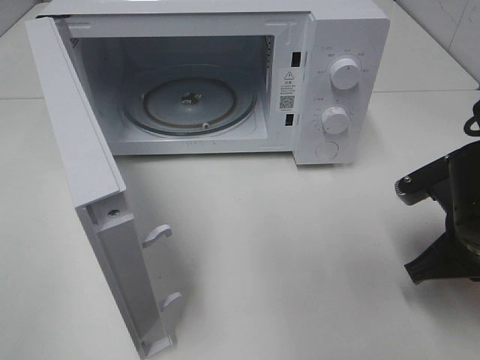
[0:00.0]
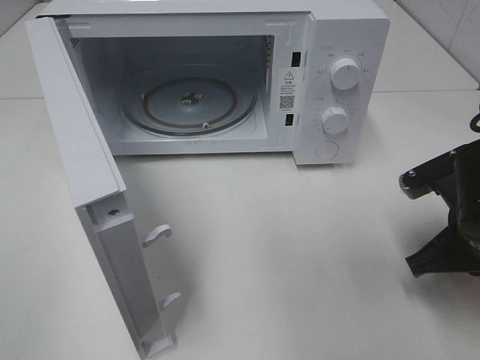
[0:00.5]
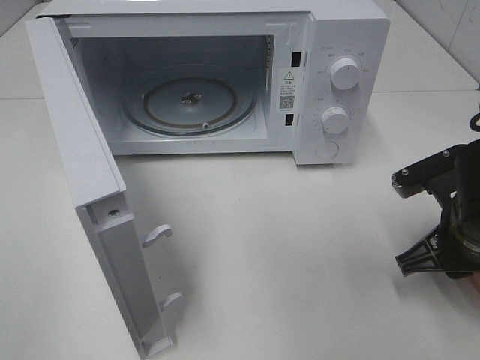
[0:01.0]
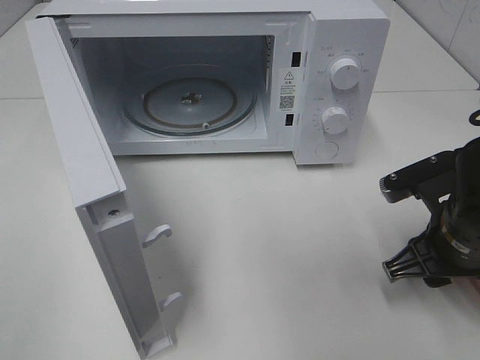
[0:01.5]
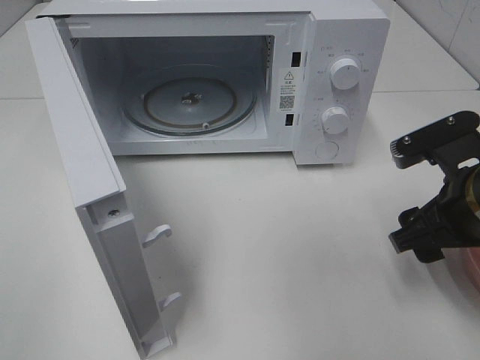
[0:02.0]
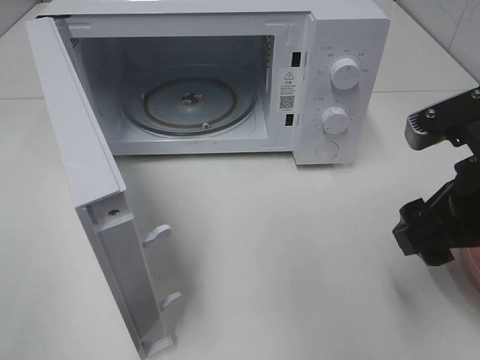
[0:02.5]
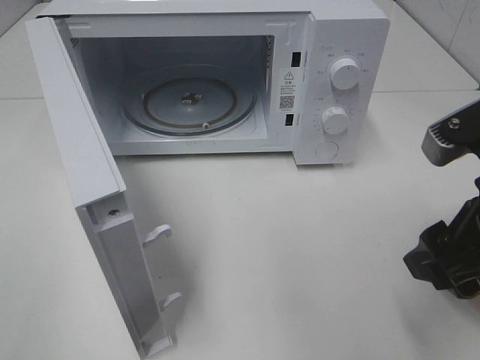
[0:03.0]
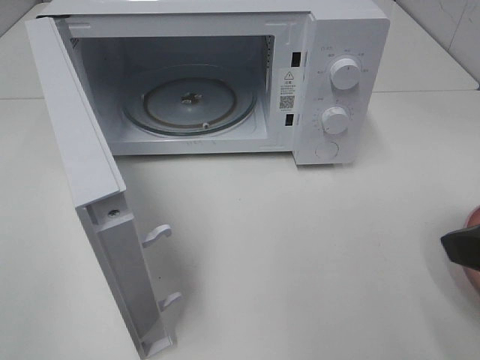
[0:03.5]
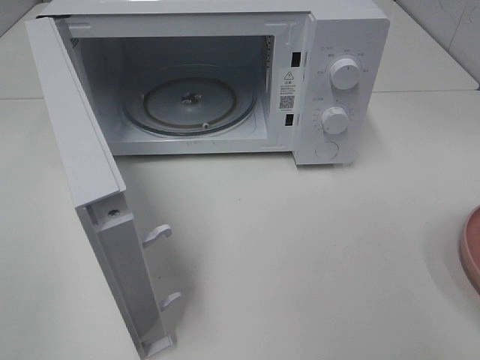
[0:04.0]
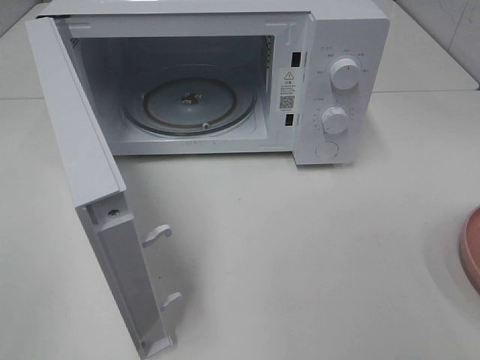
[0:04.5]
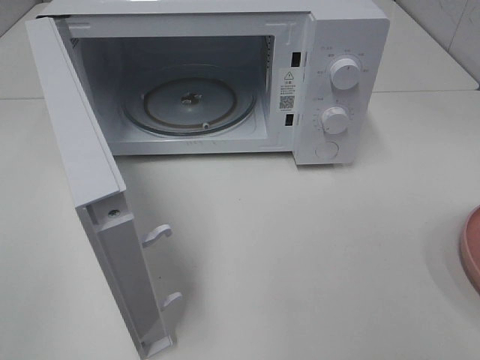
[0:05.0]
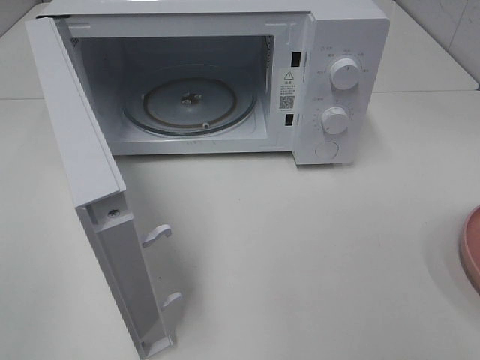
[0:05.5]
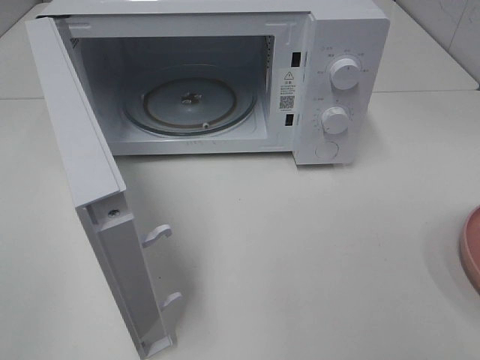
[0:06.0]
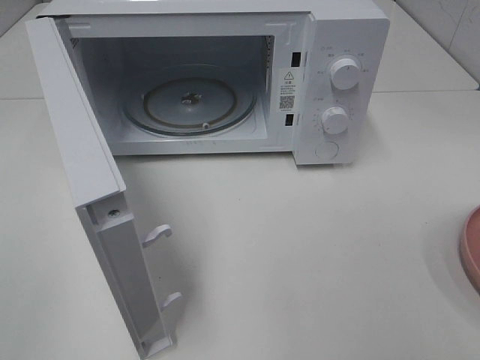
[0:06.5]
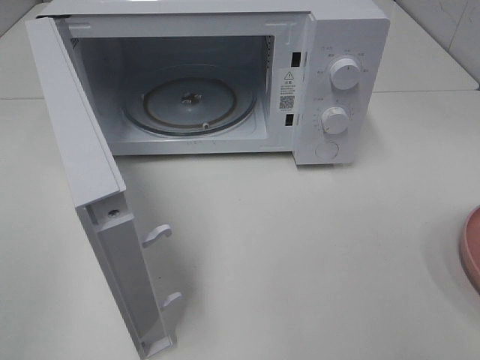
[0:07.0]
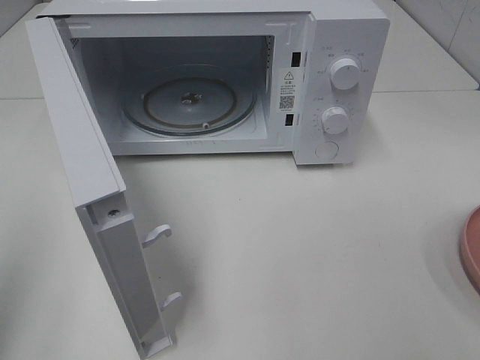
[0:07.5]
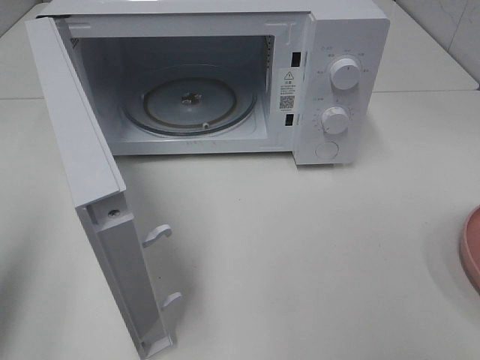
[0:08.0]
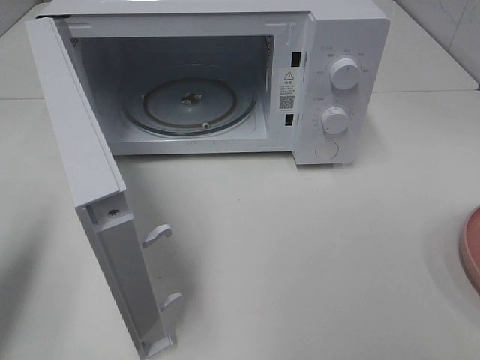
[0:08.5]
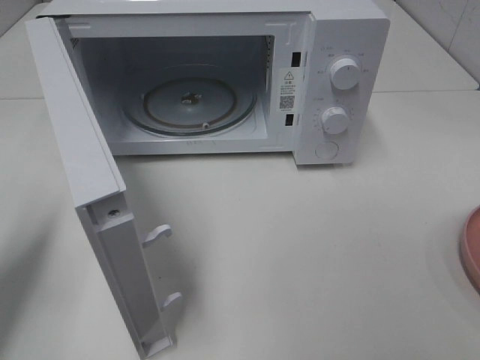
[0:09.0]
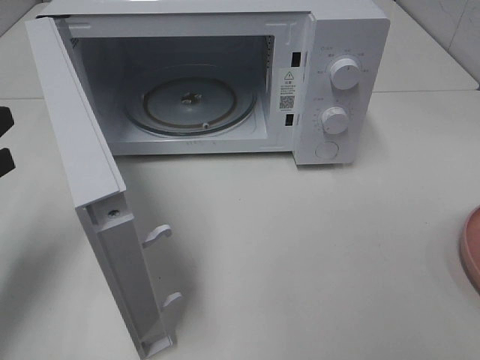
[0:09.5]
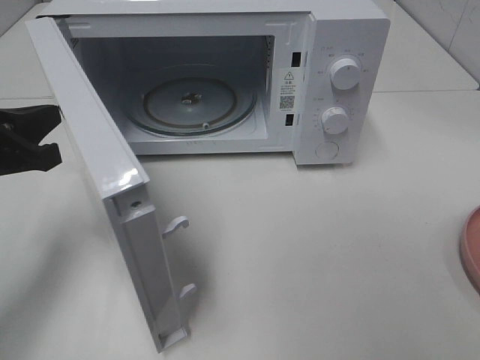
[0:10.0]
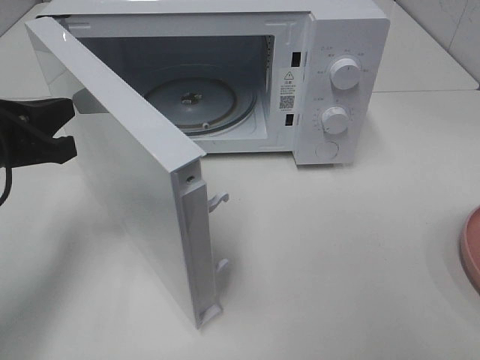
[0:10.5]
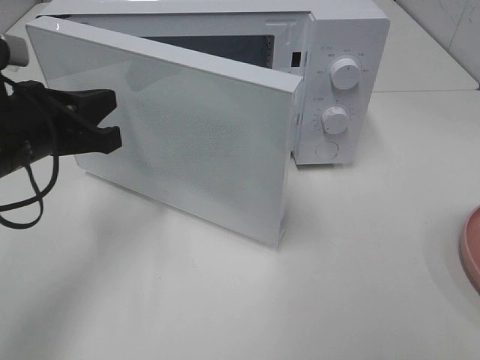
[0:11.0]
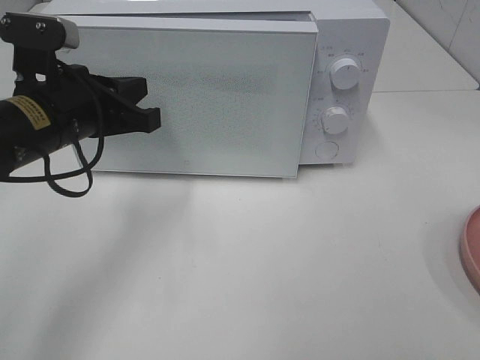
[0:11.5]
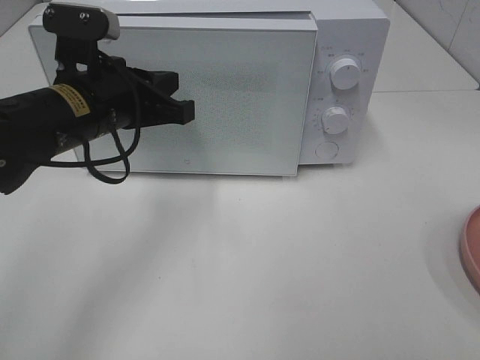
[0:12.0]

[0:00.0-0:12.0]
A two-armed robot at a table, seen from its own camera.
Task of the whole recording: Heat the burger.
0:00.0 to 0:02.0: The right gripper opens its fingers.
0:02.0 to 0:04.0: The right gripper moves backward, upward and to the right, roughly 20 cm.
0:06.0 to 0:08.0: The left gripper moves forward, about 15 cm, and closes up.
0:08.0 to 0:10.0: The left gripper moves forward, downward and to the right, roughly 15 cm.
0:10.0 to 0:12.0: The left gripper travels to the right and forward by approximately 15 cm.

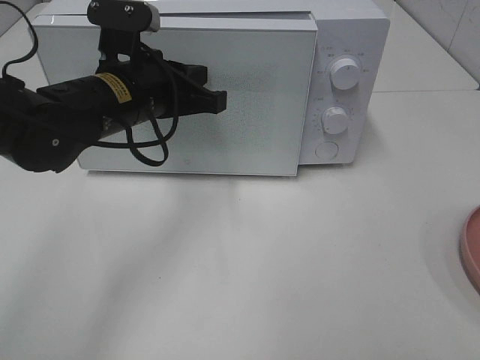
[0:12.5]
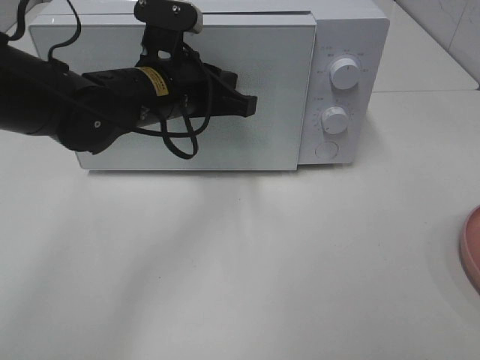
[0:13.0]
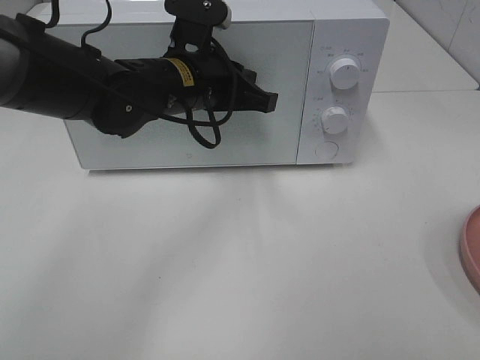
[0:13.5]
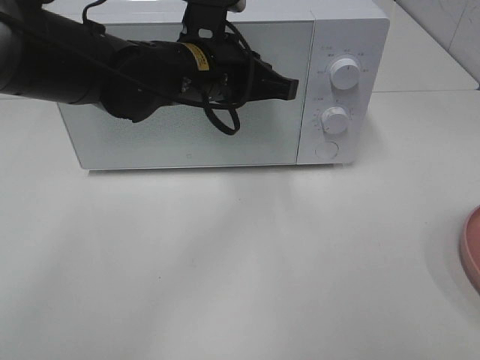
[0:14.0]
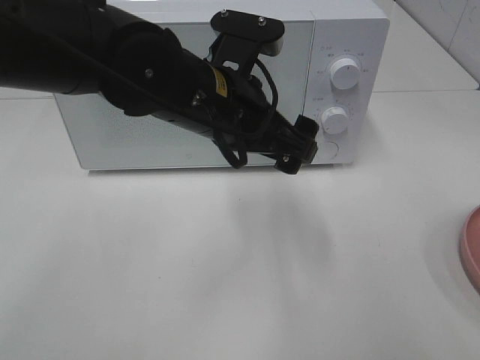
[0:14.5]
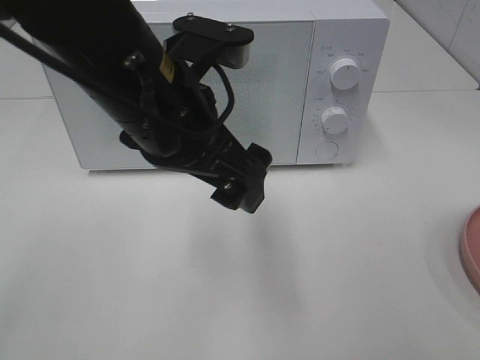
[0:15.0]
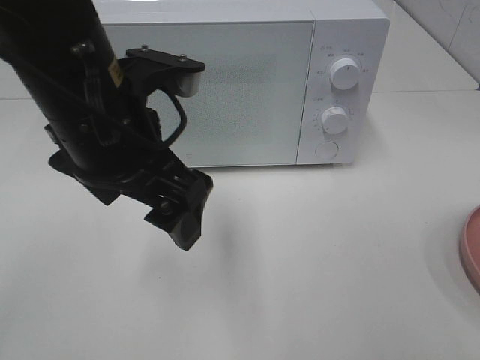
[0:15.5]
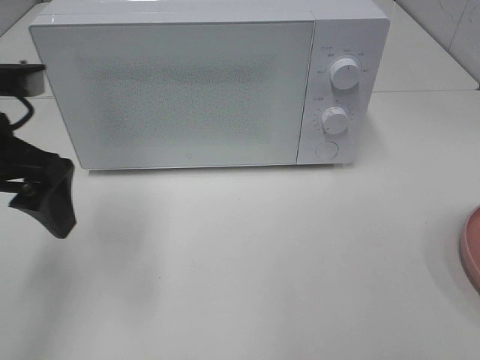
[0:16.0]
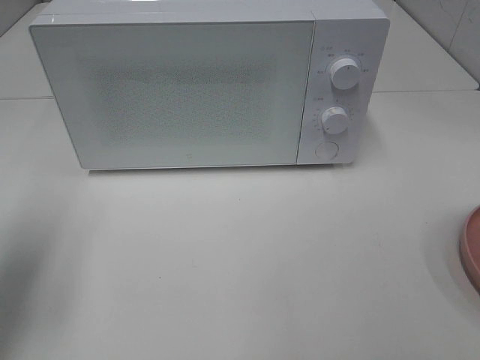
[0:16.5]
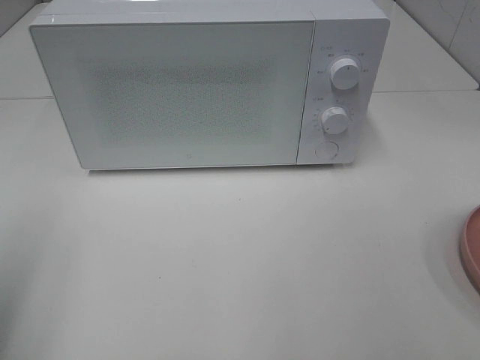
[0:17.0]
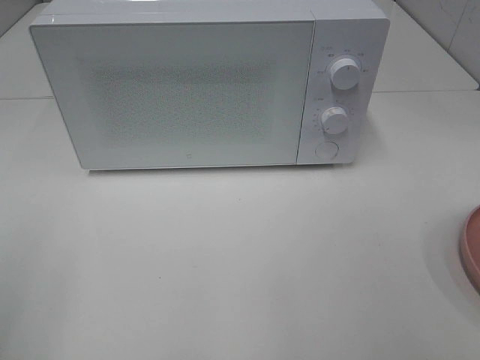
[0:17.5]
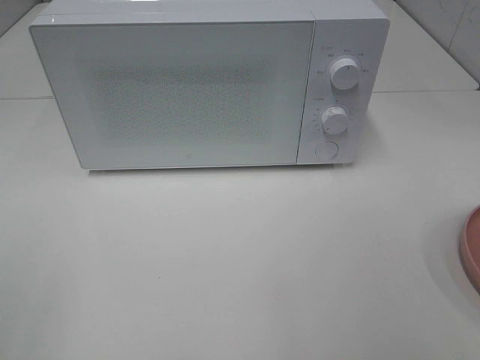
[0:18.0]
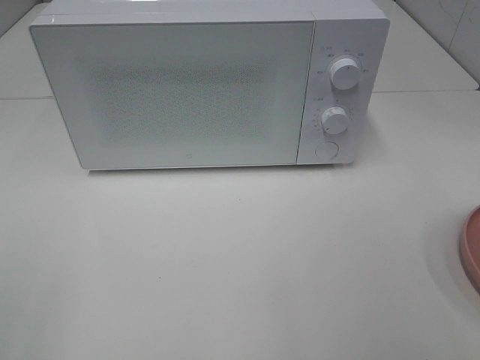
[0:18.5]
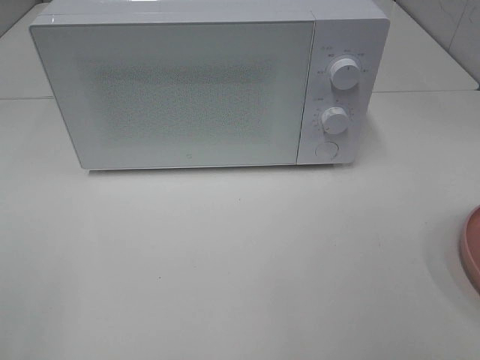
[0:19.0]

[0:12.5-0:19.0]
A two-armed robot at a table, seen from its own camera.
Task of the whole recording: Heat the burger.
0:12.5 to 0:14.5: The left gripper moves to the right, some 10 cm, and opens its fingers.
0:14.5 to 0:17.0: The left gripper moves to the left and backward, approximately 35 cm.

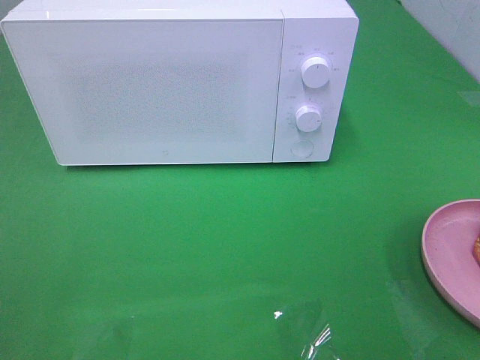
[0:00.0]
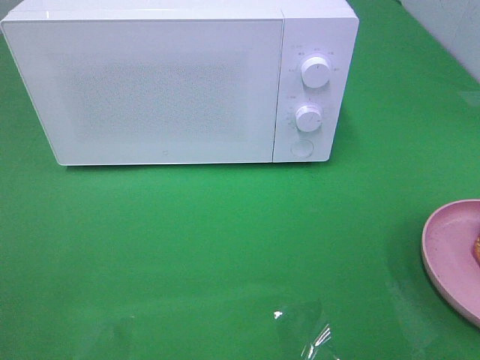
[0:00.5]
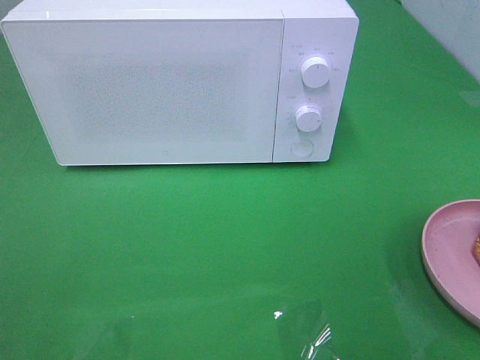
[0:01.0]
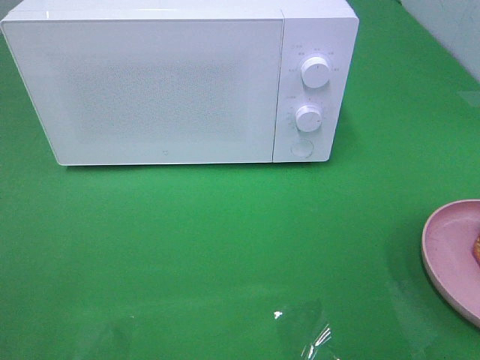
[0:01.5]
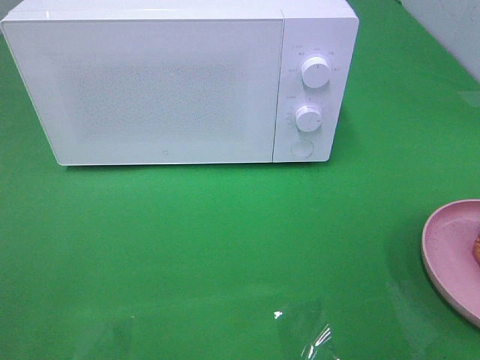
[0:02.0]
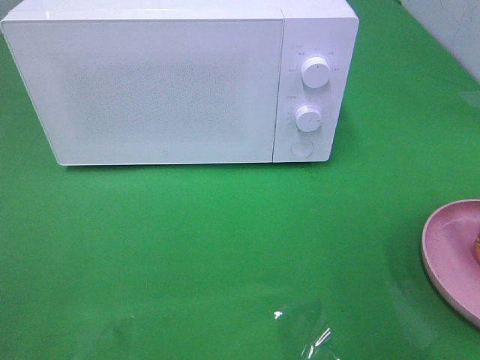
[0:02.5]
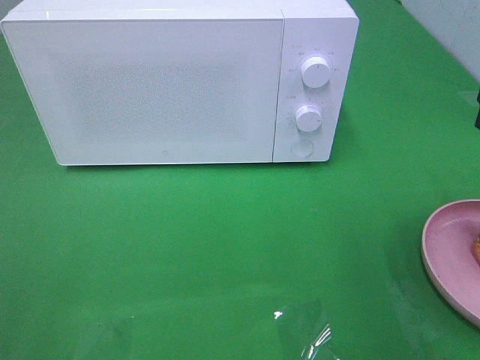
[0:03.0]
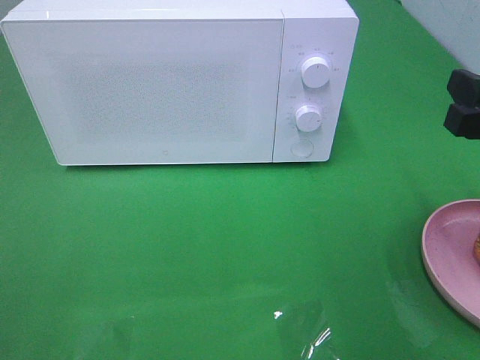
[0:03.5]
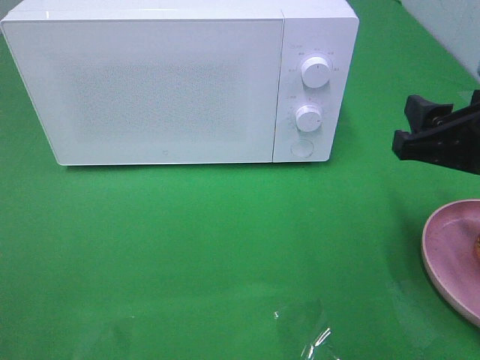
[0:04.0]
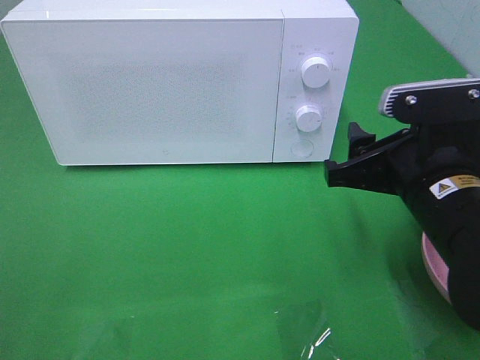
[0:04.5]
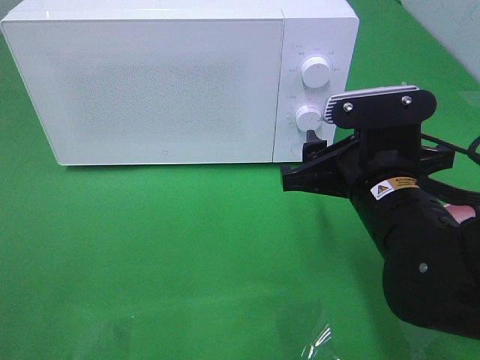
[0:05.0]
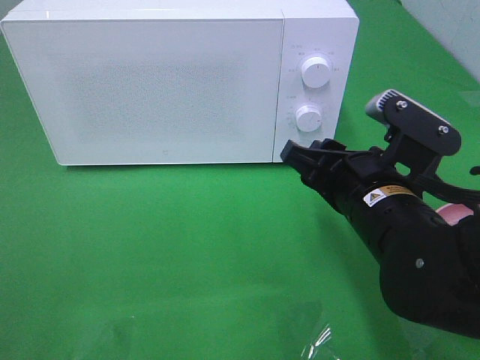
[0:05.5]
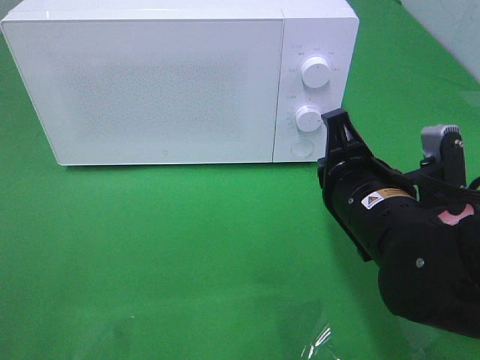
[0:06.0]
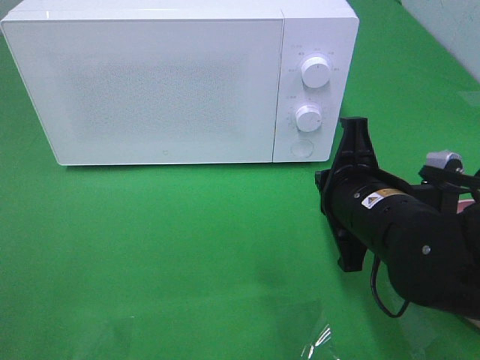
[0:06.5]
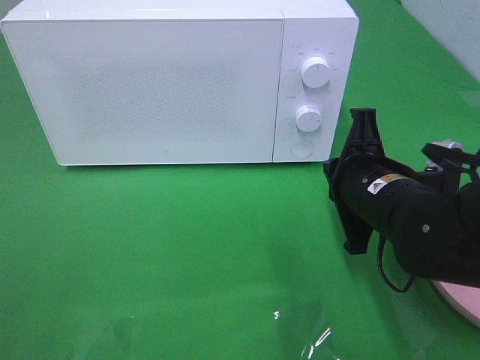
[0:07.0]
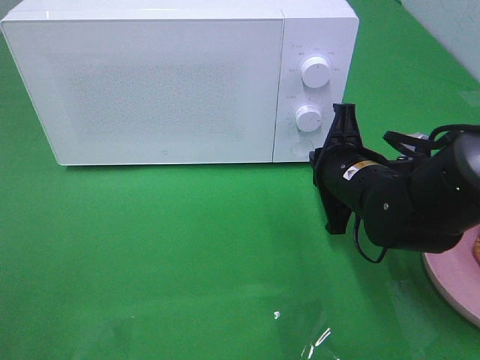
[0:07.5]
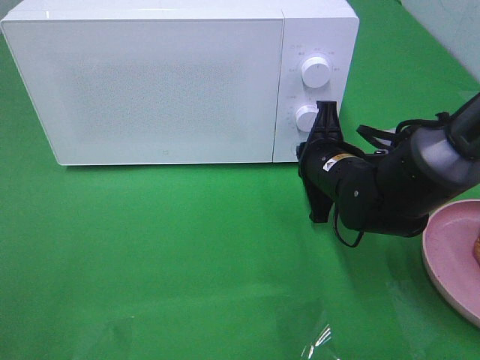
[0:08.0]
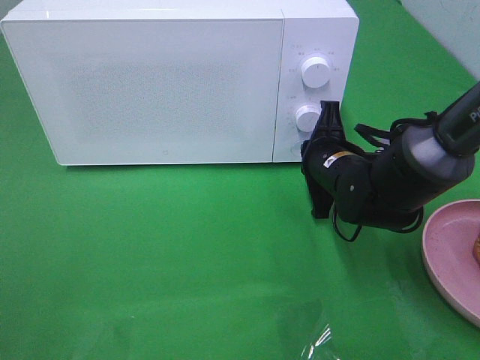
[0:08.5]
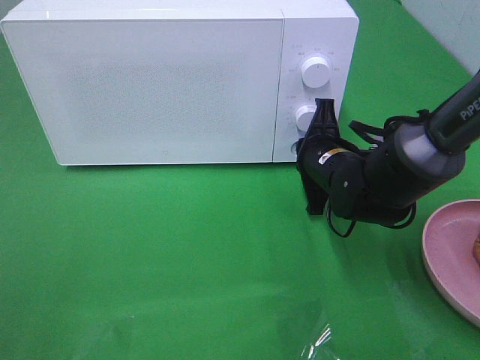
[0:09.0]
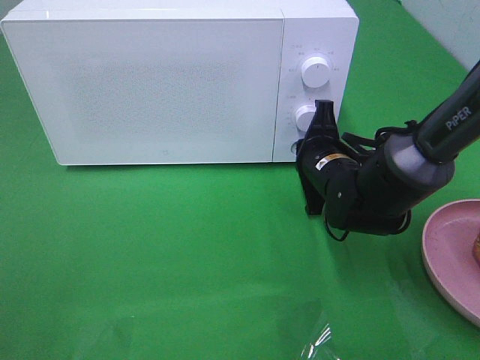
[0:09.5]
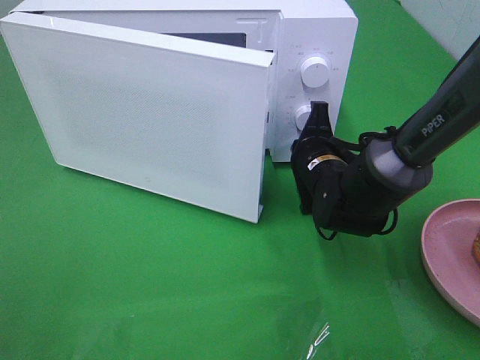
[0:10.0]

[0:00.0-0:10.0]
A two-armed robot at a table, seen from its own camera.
Task of the whole recording: Heat the burger.
0:02.0 to 0:04.0: The right gripper goes some 15 cm forward, downward and to the left.
0:04.0 to 0:06.0: The right gripper goes about 10 cm to the left and downward, and closes its fingers.
0:06.0 to 0:08.0: The right gripper moves forward and downward, approximately 10 cm.
0:08.0 to 0:10.0: The grippers move only a little.
